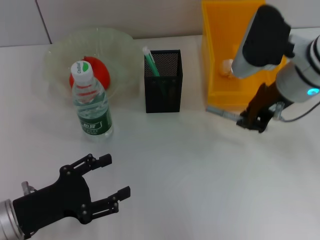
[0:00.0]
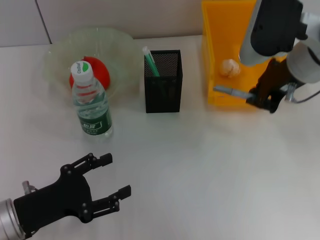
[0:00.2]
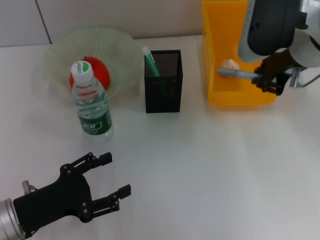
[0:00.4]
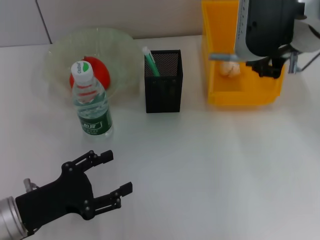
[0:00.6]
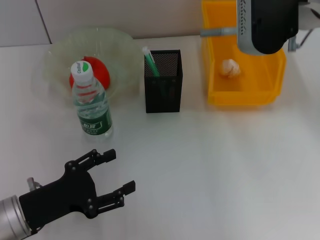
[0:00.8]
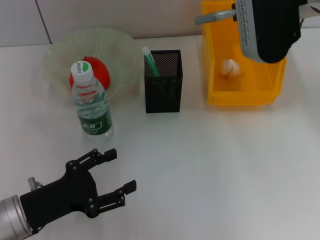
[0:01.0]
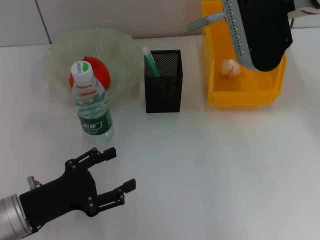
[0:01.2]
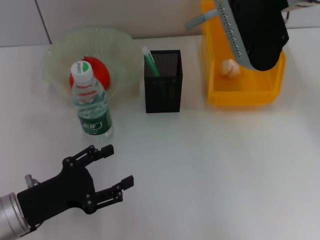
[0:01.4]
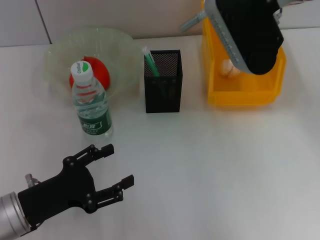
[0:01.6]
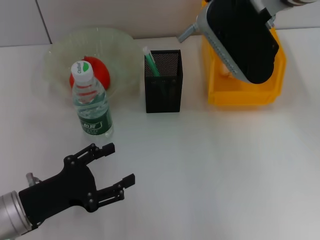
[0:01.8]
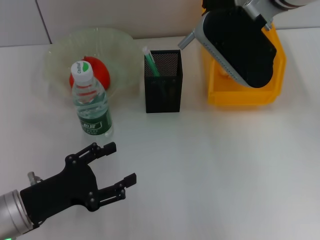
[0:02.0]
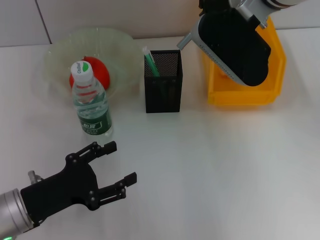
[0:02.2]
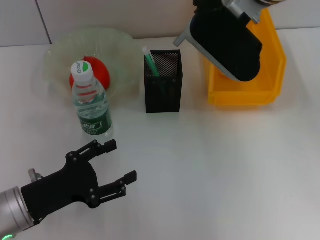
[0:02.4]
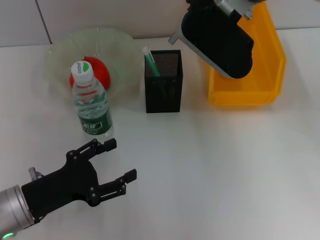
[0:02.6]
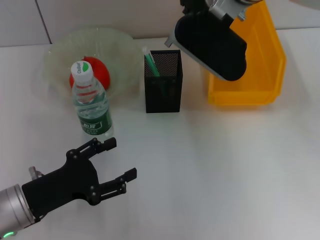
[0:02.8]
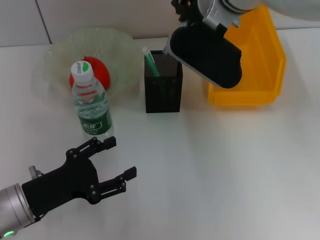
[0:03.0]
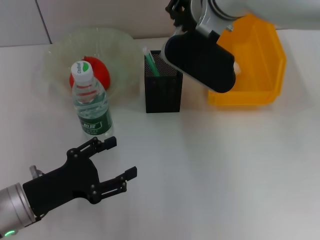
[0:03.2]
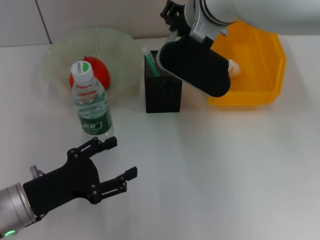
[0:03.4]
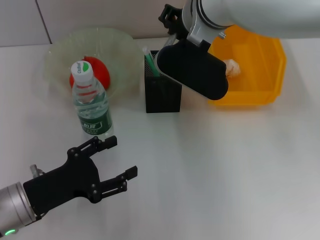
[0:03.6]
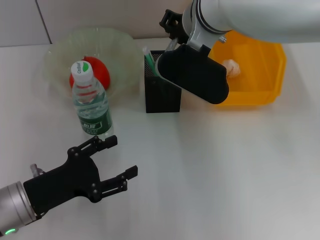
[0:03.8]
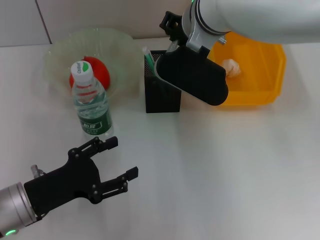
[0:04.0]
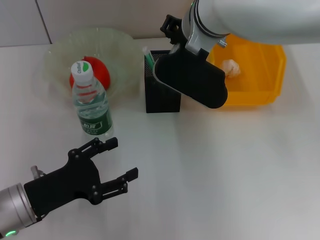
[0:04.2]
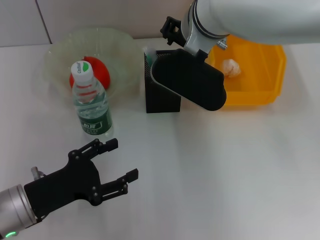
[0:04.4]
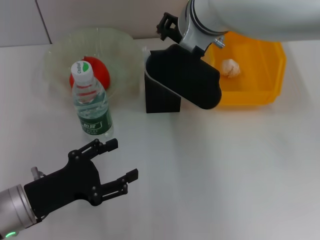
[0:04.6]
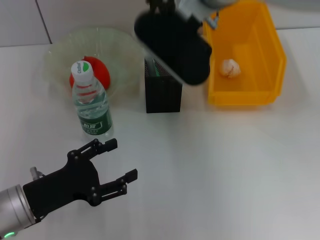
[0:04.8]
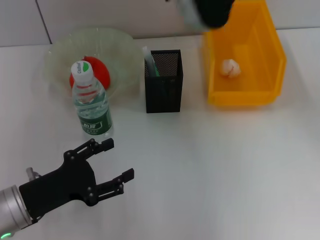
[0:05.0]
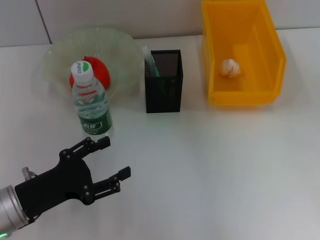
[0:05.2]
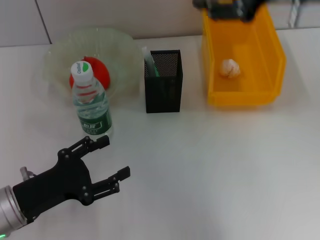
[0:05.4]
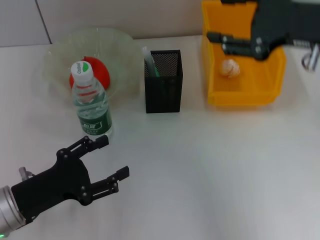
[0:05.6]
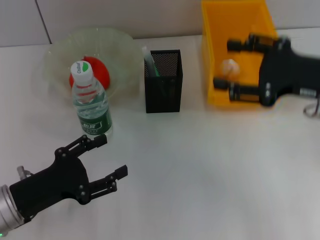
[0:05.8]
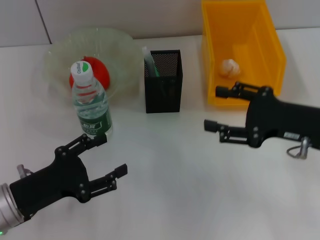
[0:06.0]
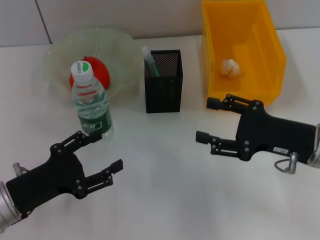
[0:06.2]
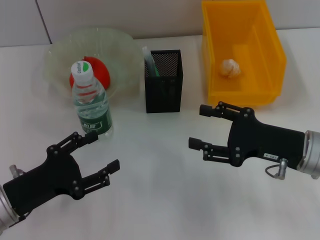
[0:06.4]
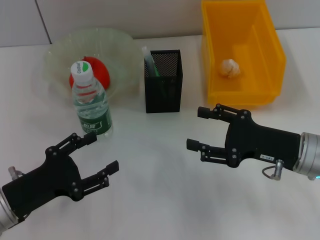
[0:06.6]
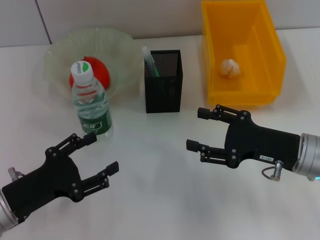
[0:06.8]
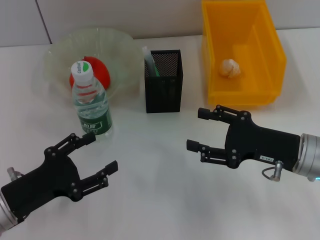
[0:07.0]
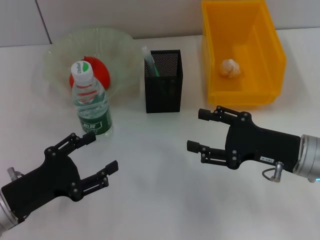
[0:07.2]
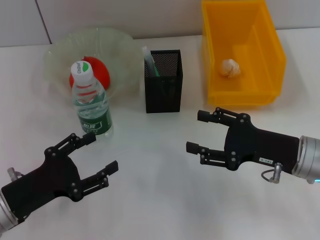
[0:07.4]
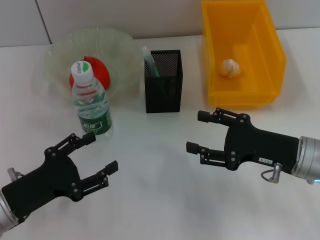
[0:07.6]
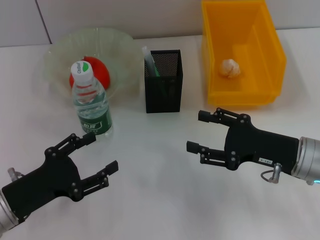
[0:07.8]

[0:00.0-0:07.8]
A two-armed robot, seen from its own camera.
Step, 0:00.0 to 0:04.6: Place the gray glue into the pen holder with the right hand.
0:00.0 to 0:01.6: The right gripper goes roughly 10 cm upward and to the left.
0:01.6 to 0:03.2: The right gripper shifts about 5 cm to the left.
0:03.2 to 0:04.6: The right gripper opens.
0:04.6 to 0:06.2: The right gripper shifts some 30 cm to the right, downward and backward, and opens up.
0:06.2 to 0:07.8: The grippers move only a little.
